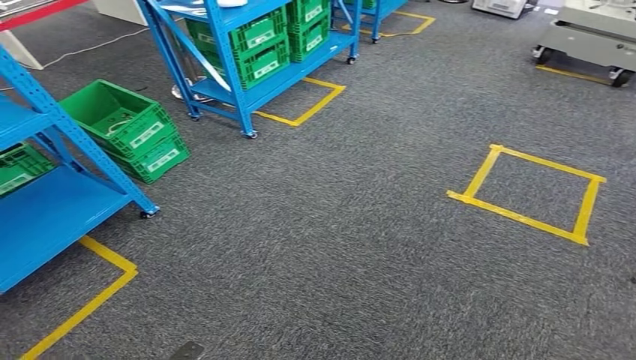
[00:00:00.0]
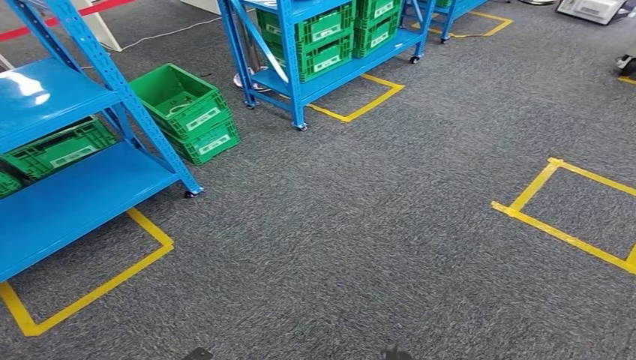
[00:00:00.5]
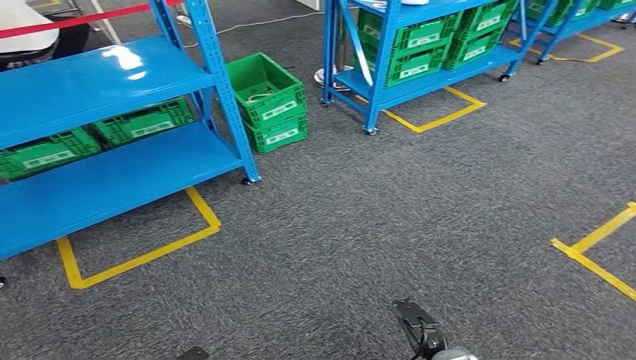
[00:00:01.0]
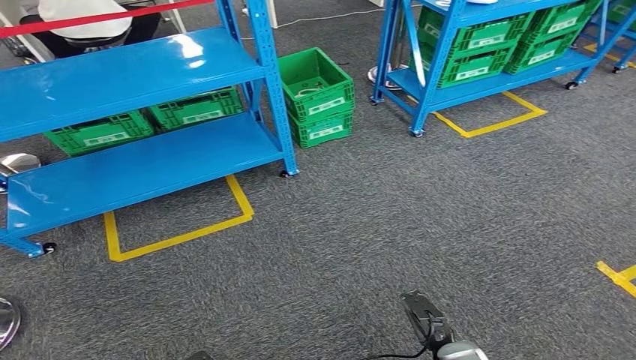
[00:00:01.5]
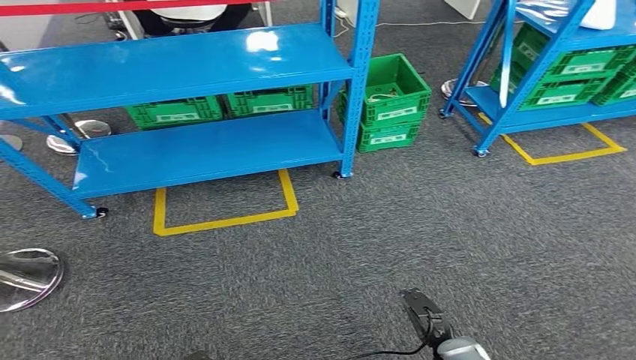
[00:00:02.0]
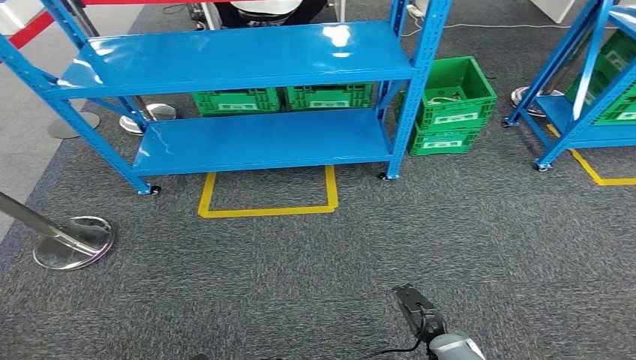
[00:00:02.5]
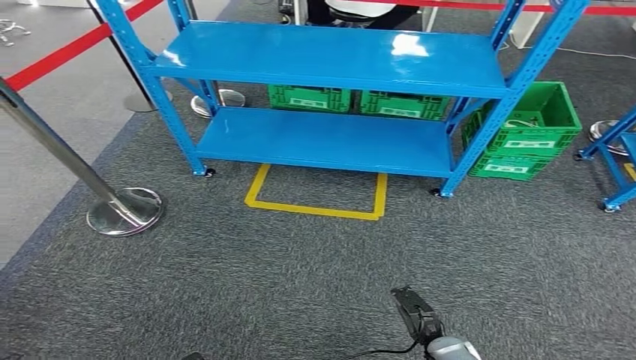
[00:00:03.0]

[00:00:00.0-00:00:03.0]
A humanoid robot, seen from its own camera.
Step, 00:00:00.0 to 00:00:03.0: Return to the initial position at the workbench.

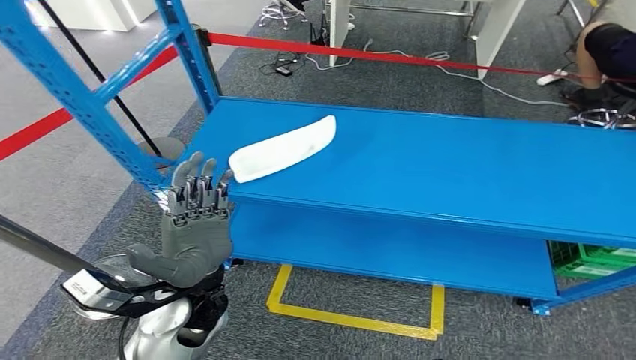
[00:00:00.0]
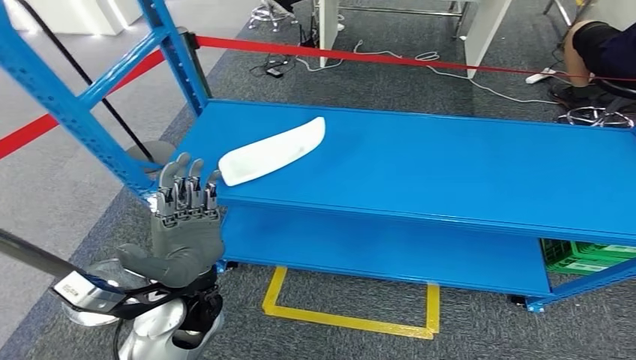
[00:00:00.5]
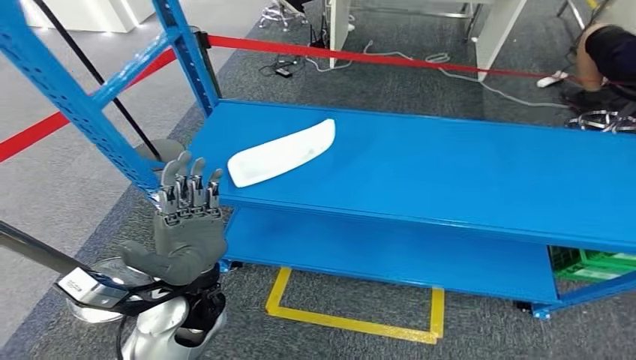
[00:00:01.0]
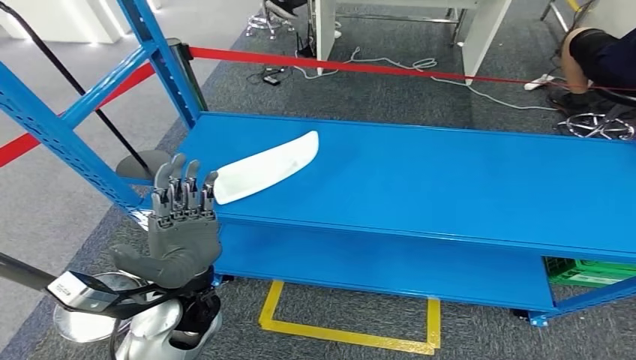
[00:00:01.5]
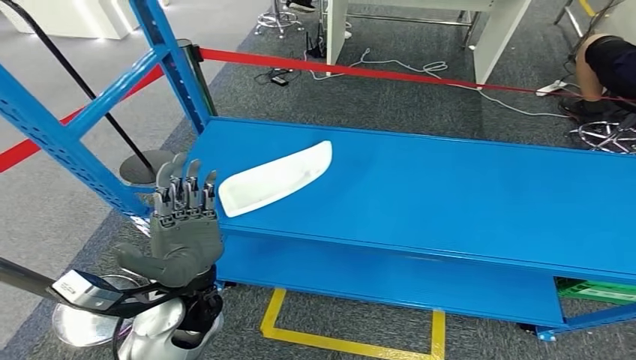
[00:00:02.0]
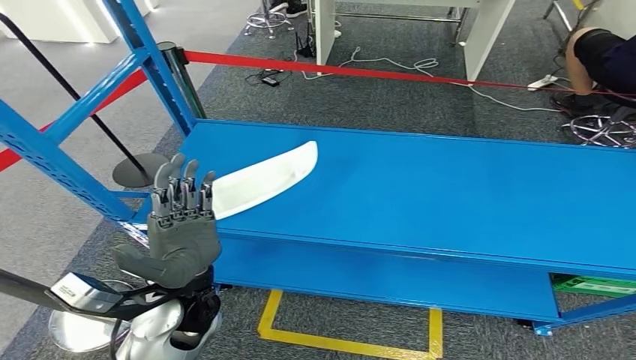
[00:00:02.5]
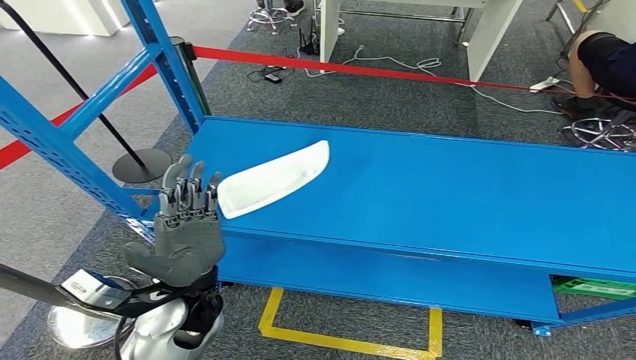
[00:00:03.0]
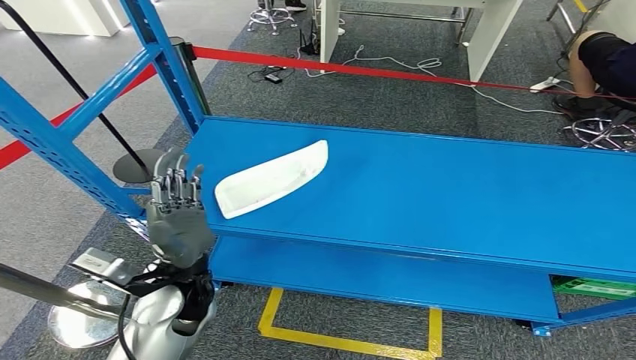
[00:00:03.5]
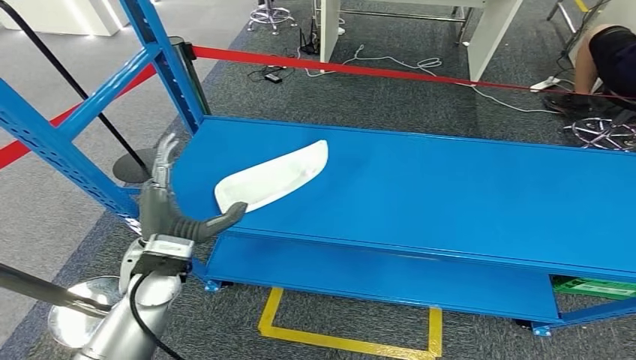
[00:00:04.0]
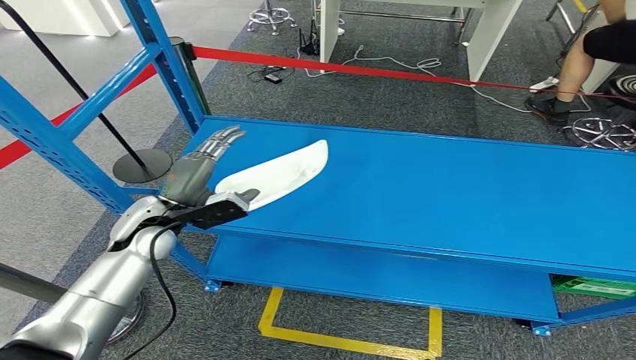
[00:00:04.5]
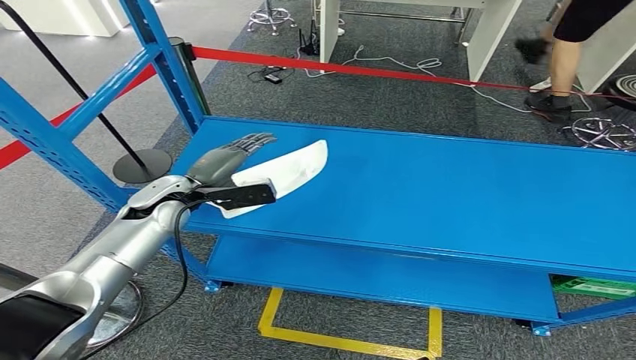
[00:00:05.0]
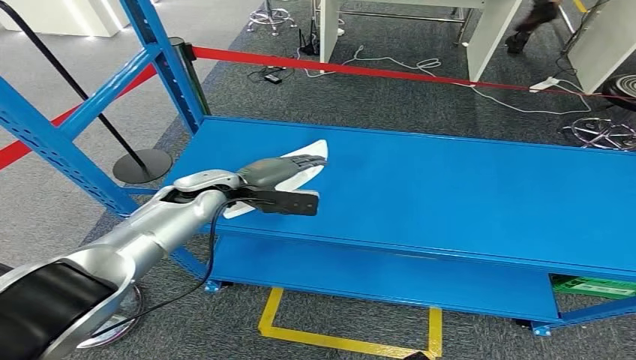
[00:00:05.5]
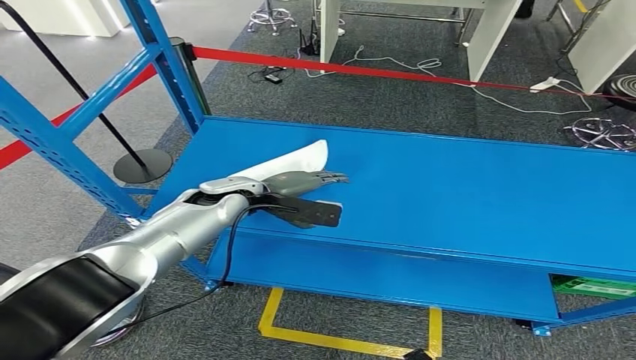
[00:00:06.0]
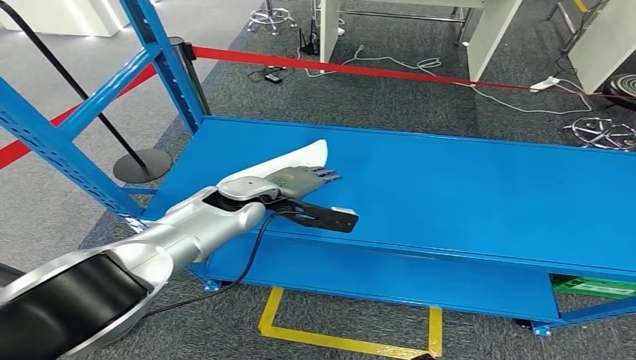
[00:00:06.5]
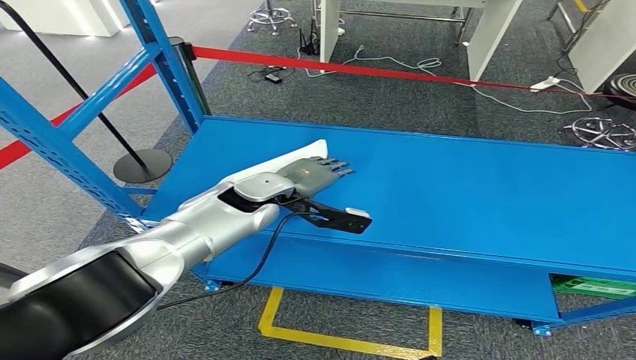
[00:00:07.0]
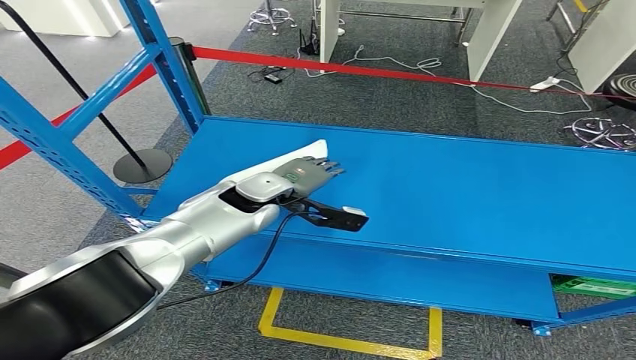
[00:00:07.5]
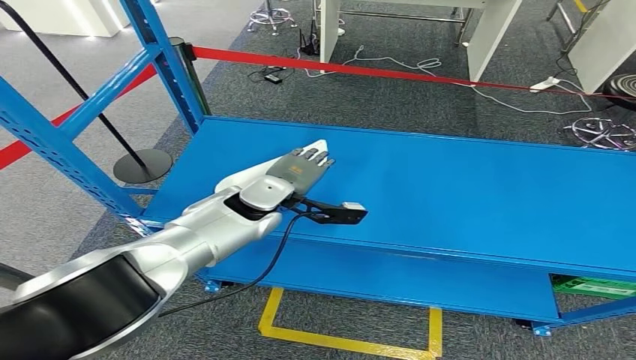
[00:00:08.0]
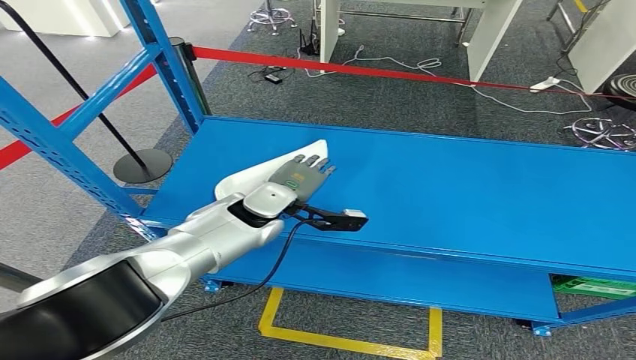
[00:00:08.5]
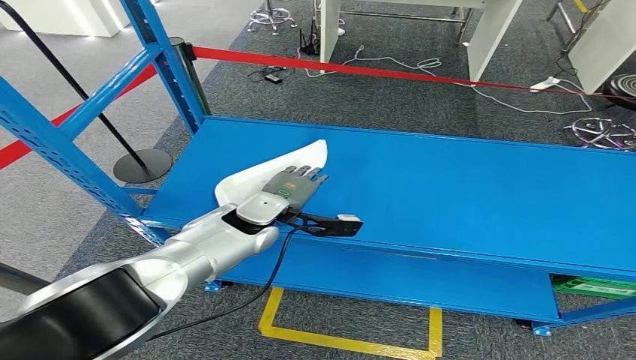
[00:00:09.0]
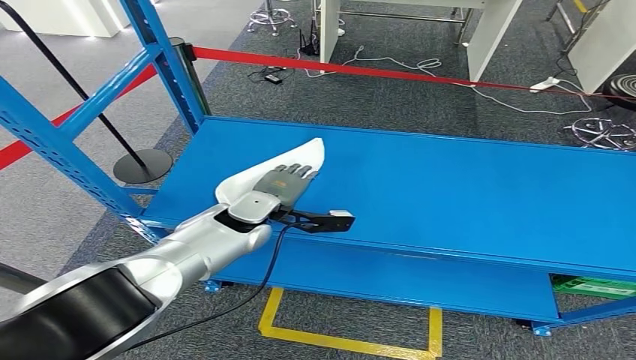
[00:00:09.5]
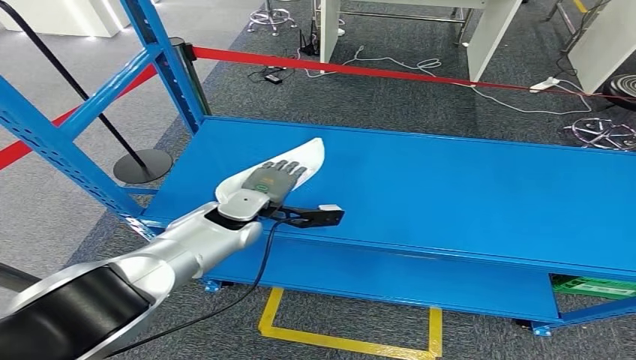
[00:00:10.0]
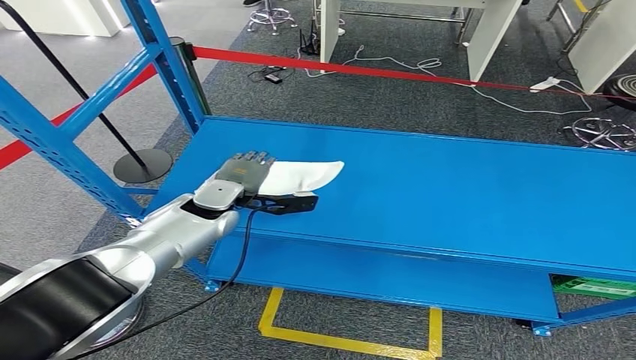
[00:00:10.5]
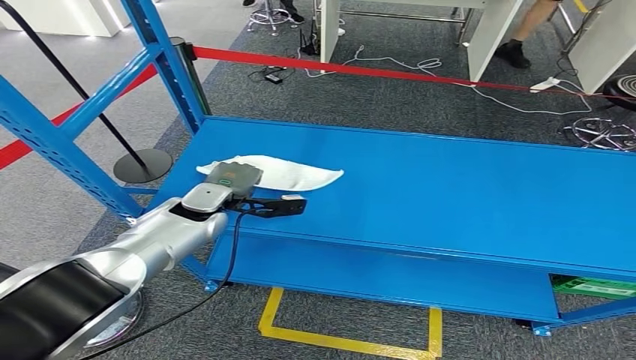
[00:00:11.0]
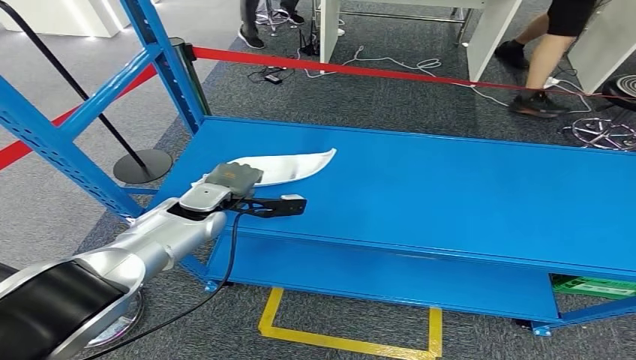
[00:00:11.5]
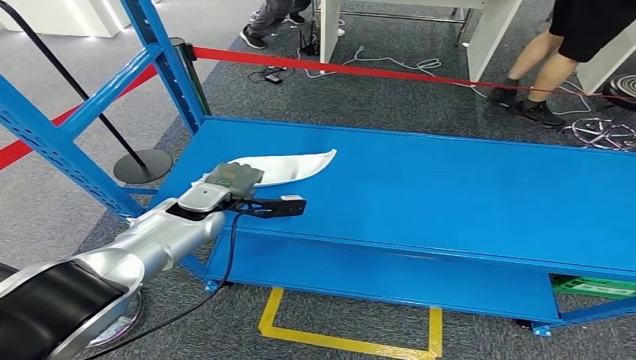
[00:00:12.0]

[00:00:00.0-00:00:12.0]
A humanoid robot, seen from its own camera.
00:00:04.0 to 00:00:06.0: The left hand travels forward by roughly 15 cm.
00:00:06.0 to 00:00:08.0: The left hand is displaced to the right by roughly 5 cm.
00:00:08.0 to 00:00:10.0: The left hand shifts by roughly 5 cm.
00:00:10.0 to 00:00:12.0: The left hand is displaced to the left by roughly 5 cm.

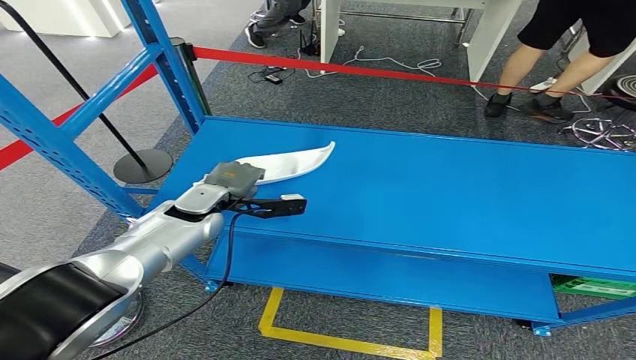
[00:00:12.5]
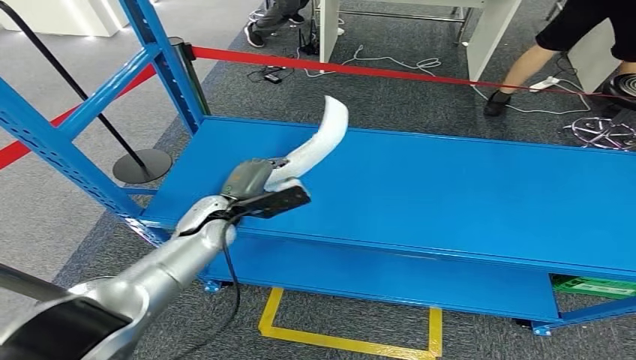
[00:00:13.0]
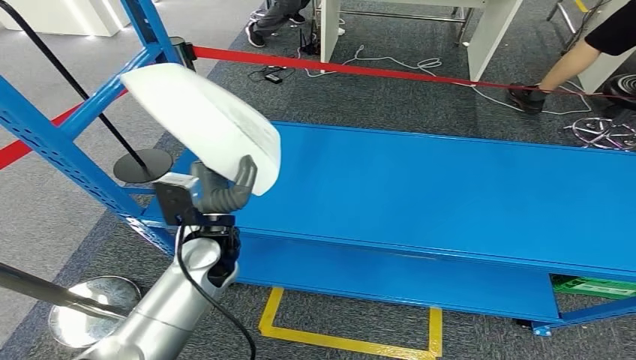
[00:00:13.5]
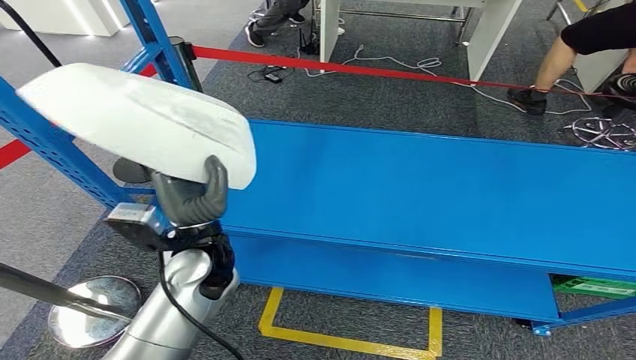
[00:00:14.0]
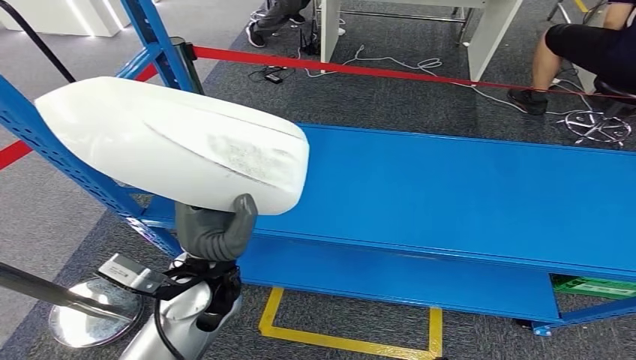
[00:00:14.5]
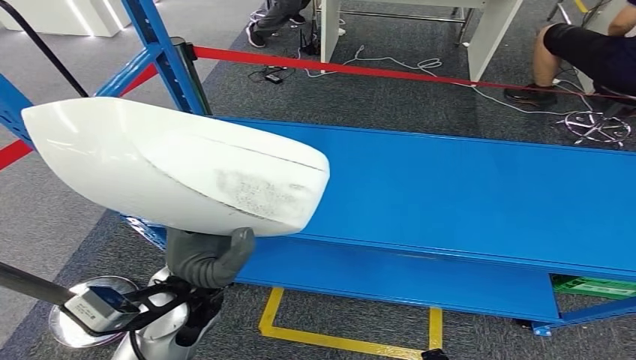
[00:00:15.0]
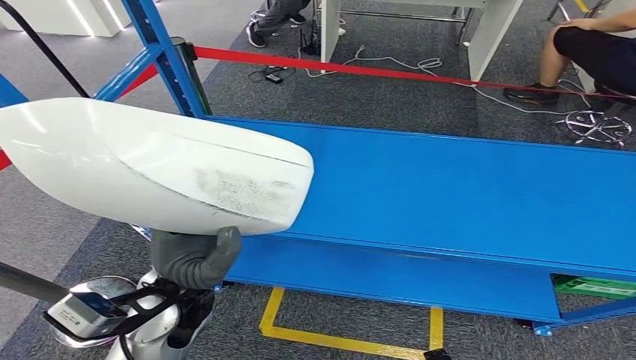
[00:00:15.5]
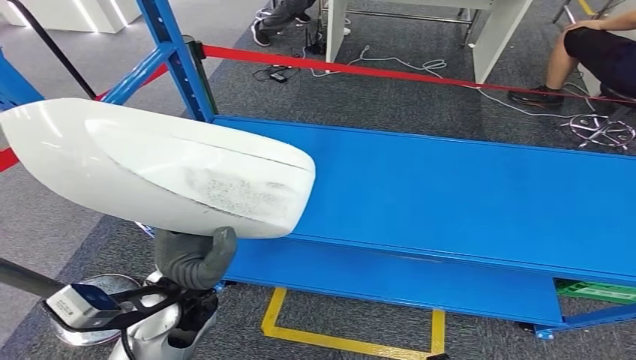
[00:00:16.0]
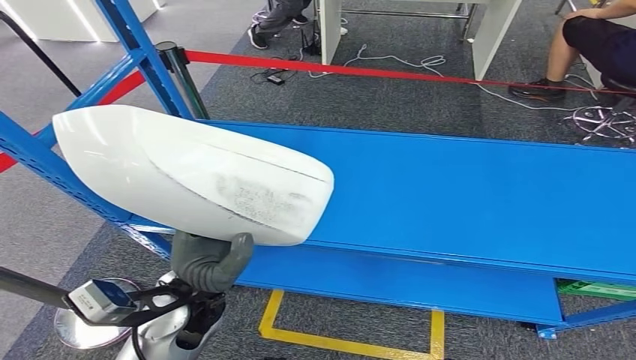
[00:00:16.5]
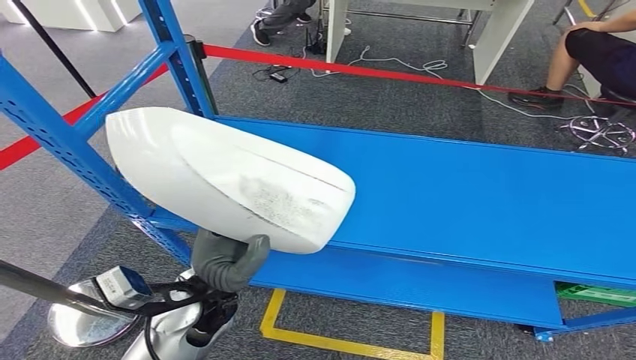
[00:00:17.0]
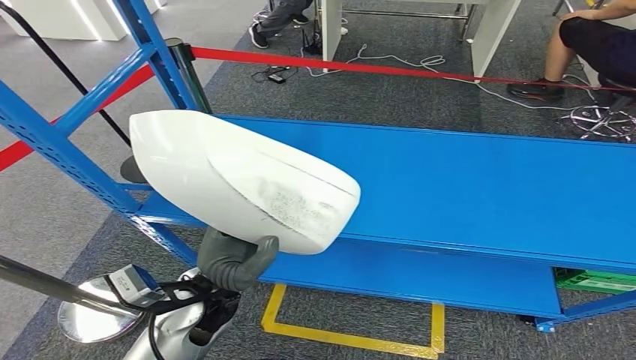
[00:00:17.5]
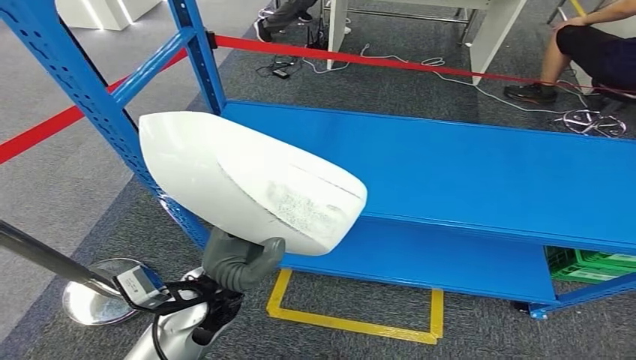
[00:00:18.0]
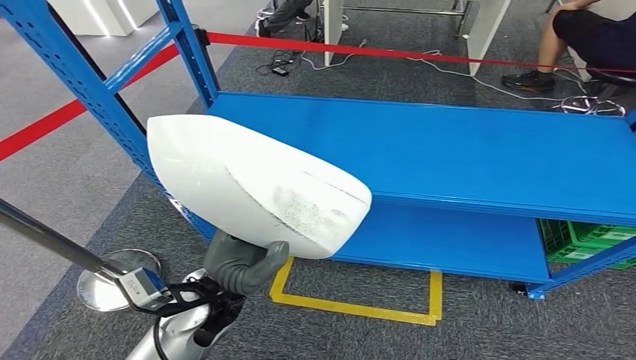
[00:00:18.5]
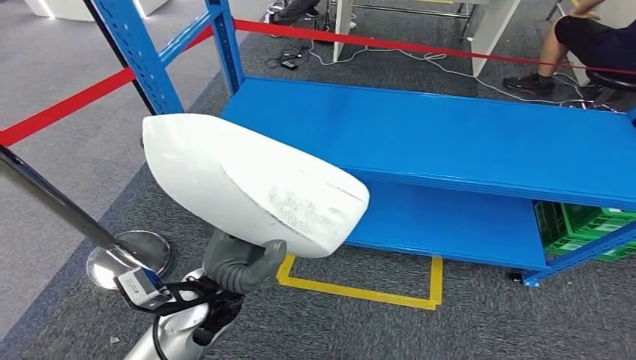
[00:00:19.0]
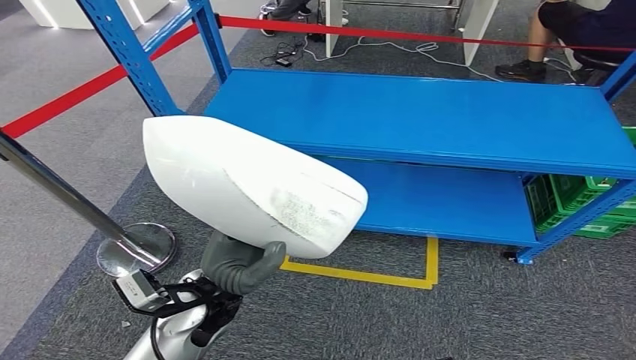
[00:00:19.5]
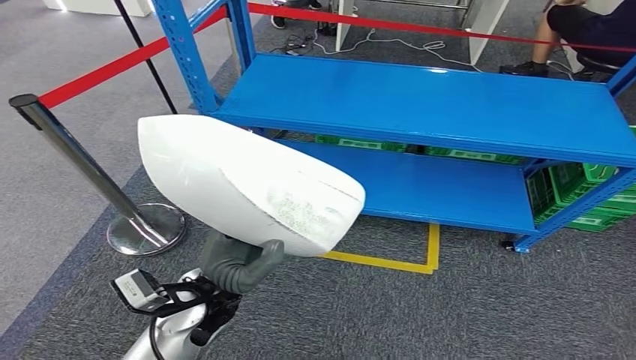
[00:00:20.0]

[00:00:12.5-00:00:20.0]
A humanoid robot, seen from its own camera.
Step, 00:00:12.5 to 00:00:15.0: Pick up the small parts from the shelf.
